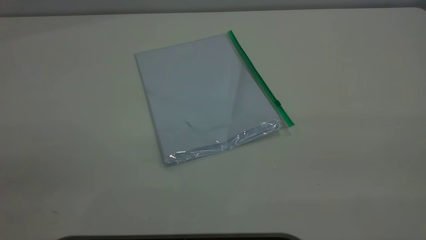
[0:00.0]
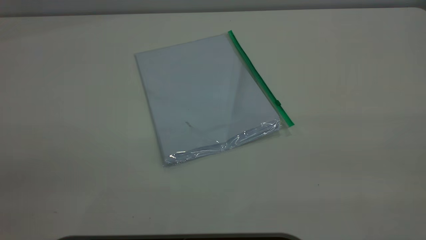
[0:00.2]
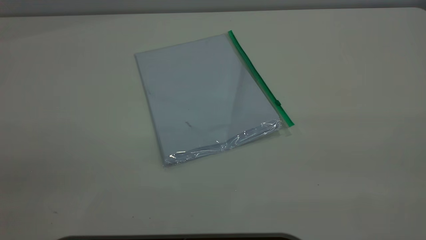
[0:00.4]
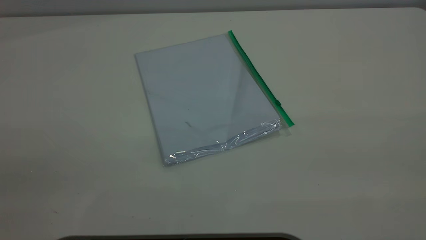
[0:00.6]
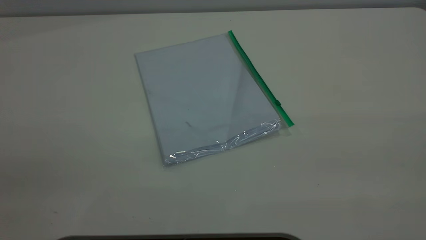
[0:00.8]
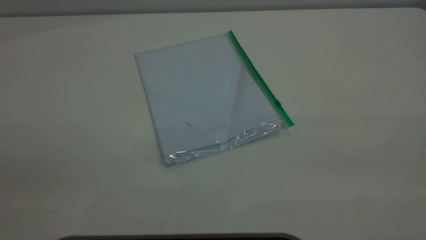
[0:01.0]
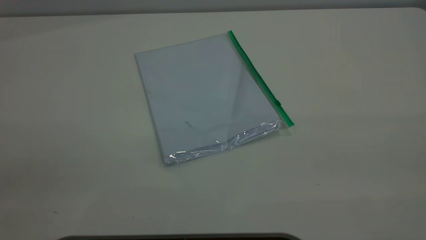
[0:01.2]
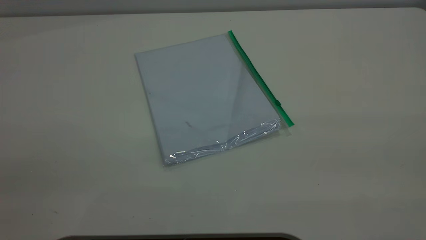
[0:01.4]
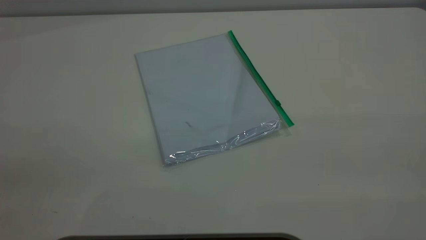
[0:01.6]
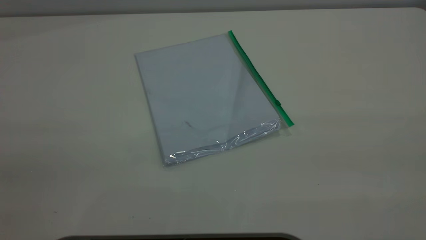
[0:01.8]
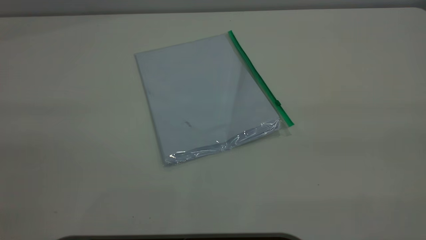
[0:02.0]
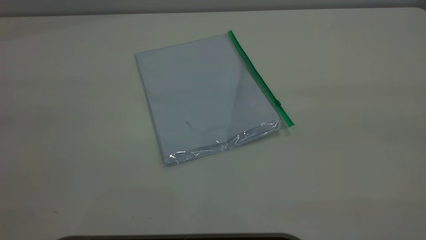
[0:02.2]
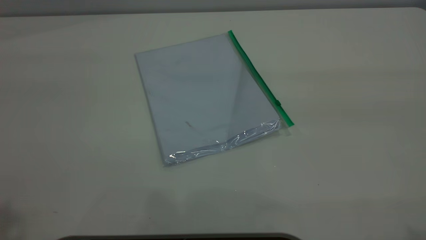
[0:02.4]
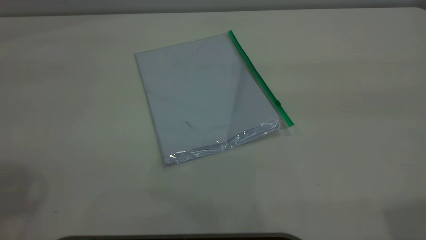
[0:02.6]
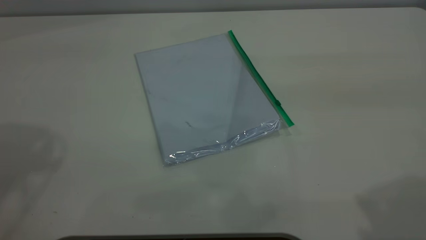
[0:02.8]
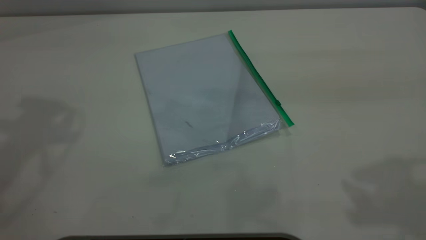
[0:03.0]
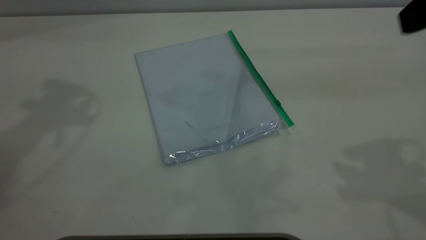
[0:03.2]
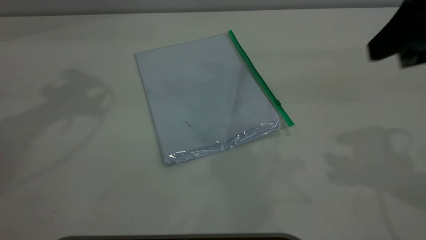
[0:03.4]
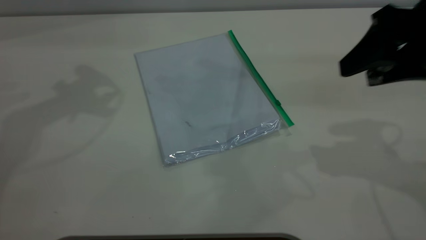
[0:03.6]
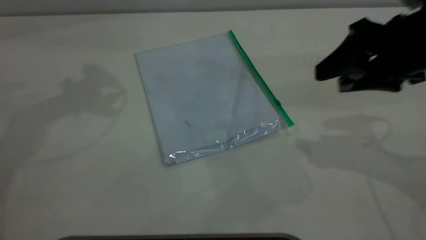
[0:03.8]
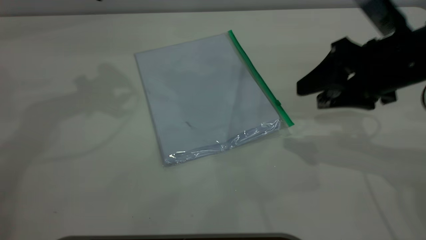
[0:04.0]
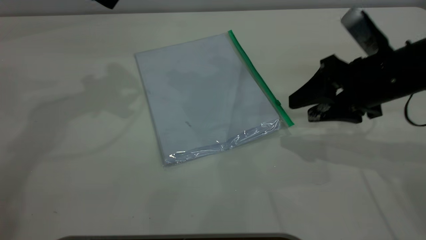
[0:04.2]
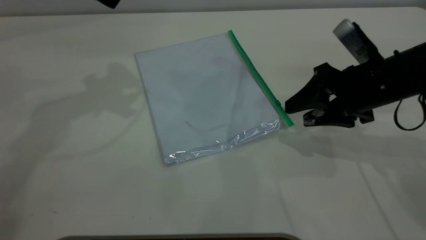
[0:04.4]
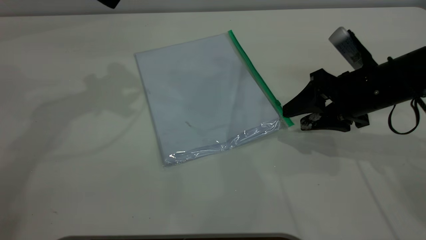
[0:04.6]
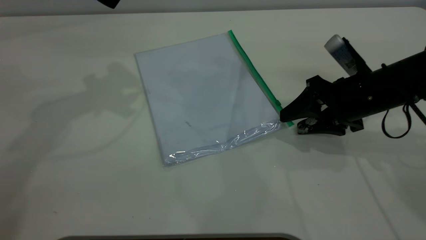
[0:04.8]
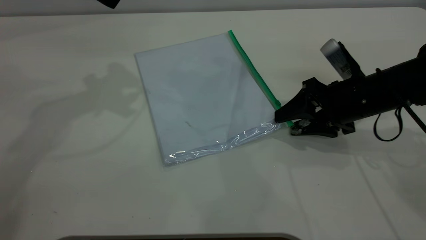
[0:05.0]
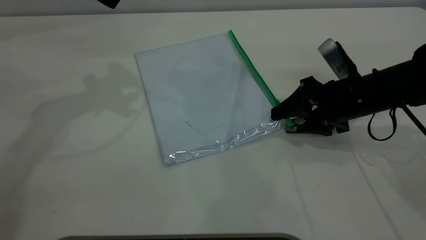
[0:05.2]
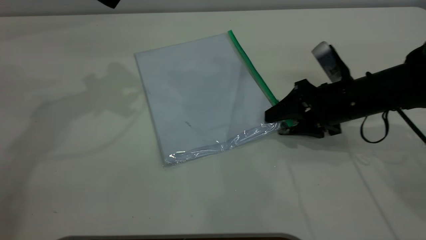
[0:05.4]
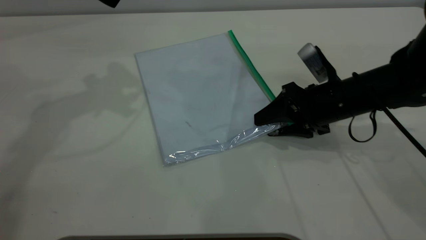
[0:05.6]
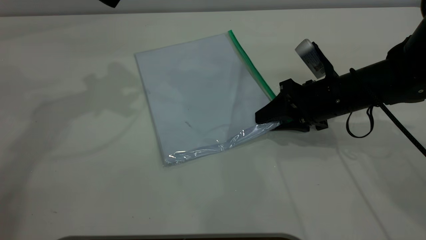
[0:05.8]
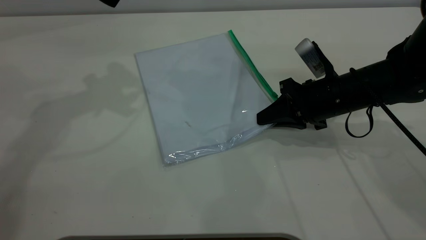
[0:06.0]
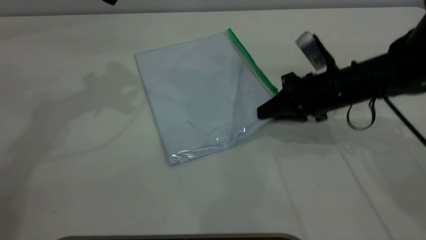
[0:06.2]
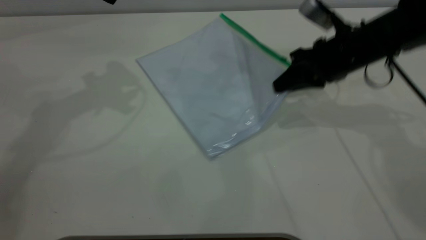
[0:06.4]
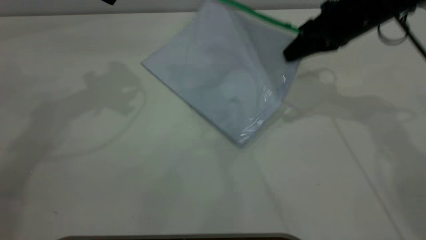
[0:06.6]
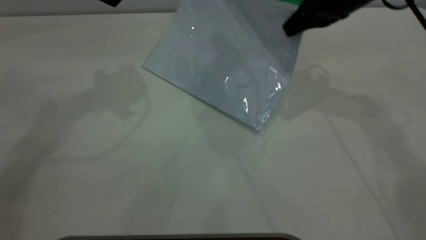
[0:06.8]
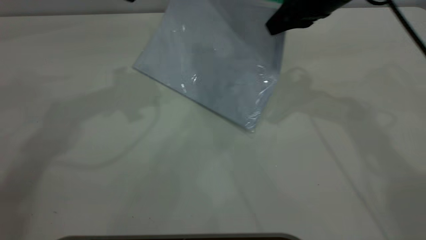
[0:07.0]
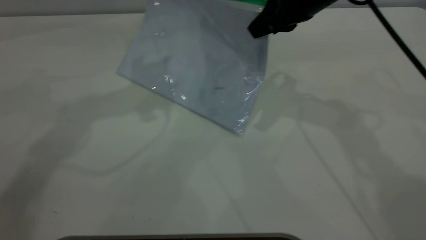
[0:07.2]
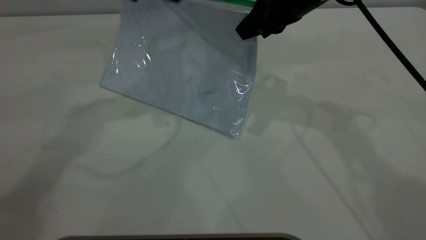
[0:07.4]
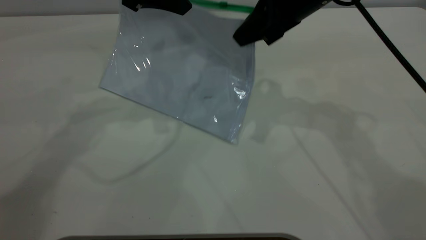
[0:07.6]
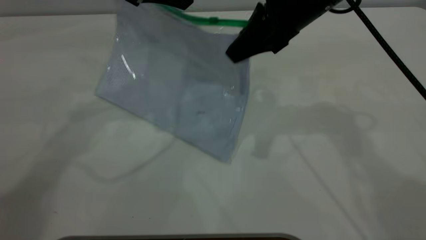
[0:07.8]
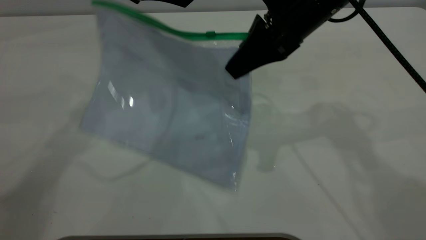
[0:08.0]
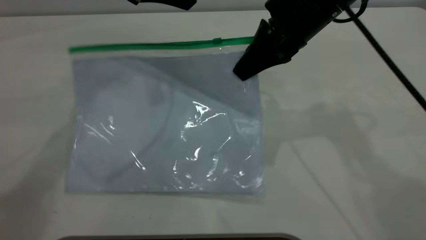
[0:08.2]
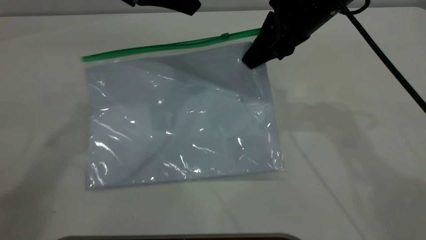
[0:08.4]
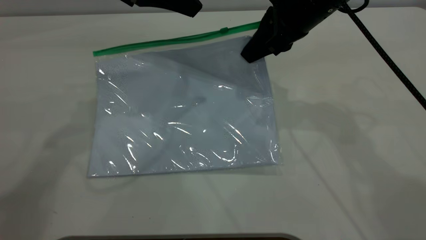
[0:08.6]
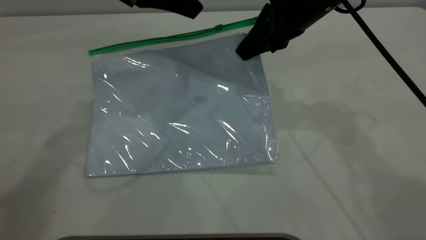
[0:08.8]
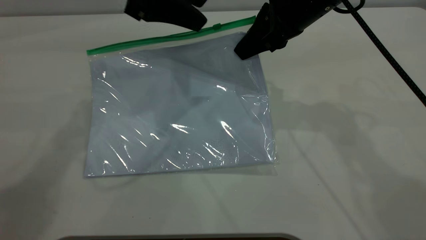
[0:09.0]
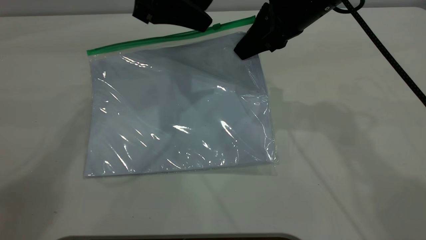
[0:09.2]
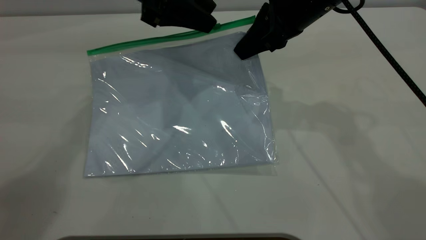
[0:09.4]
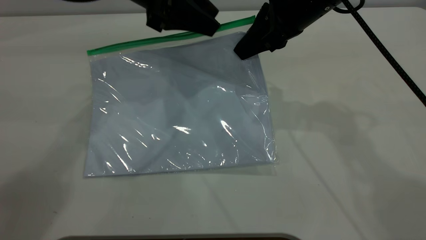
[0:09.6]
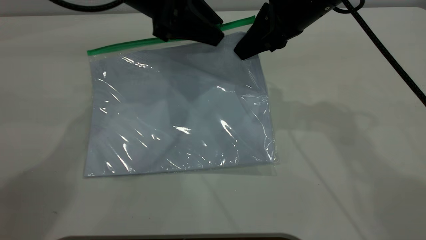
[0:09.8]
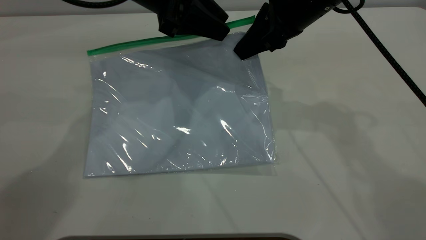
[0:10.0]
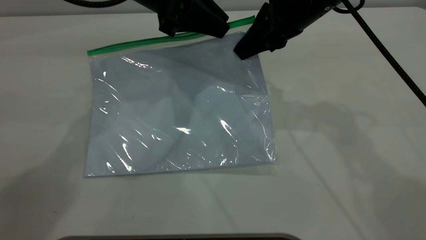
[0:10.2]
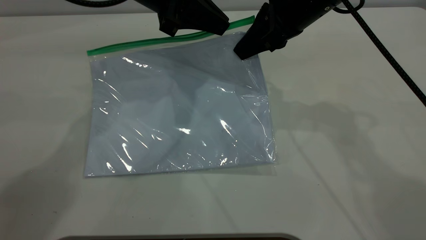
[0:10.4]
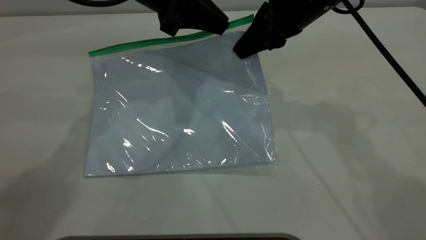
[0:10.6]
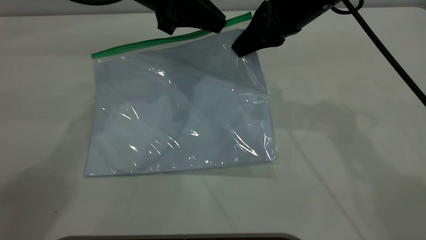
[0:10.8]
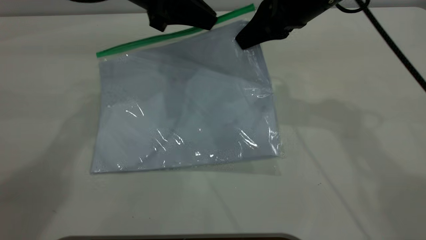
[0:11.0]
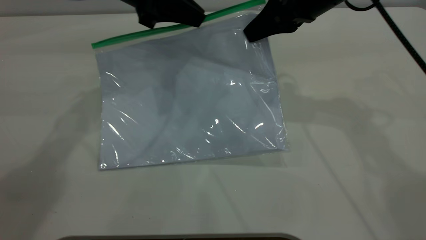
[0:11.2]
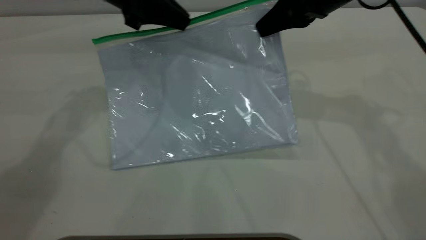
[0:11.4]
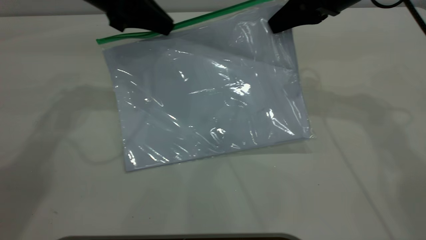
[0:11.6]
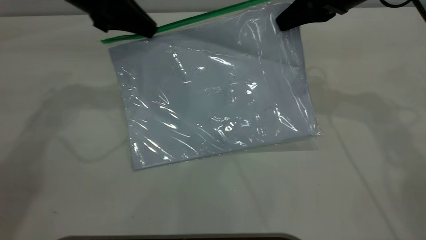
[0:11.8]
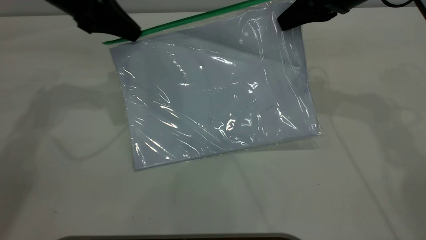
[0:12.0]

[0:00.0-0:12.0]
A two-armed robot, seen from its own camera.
Step, 0:00.0 to 0:06.4: Pick up the transparent plastic bag with the right gripper.
0:00.0 to 0:01.6: Both grippers stay about where they are.
0:03.0 to 0:04.4: The right gripper heads downward and forward, covering about 25 cm.
0:04.4 to 0:06.0: The right gripper ends up about 5 cm from where it was, and closes up.
0:06.0 to 0:07.6: The right gripper shifts roughly 15 cm upward, while the left gripper shifts roughly 10 cm to the right.
0:09.0 to 0:10.4: The left gripper closes.
0:10.4 to 0:12.0: The left gripper is displaced to the left by roughly 15 cm; the right gripper travels to the right by about 10 cm.

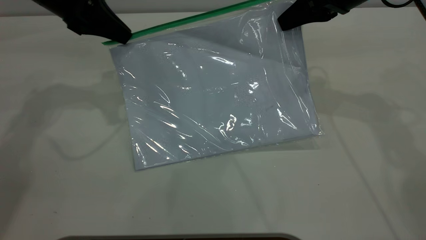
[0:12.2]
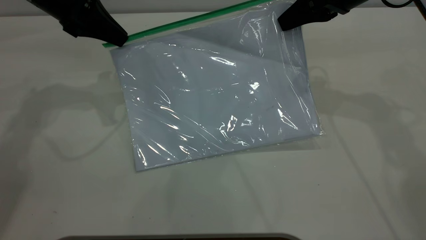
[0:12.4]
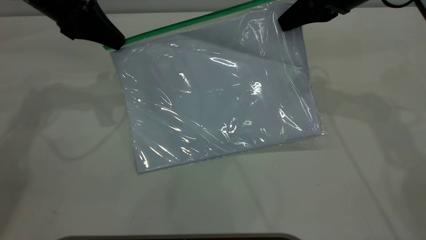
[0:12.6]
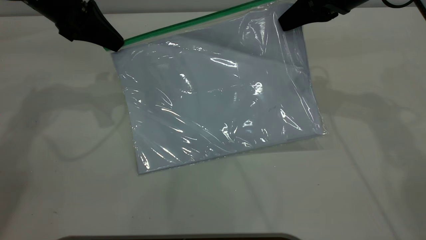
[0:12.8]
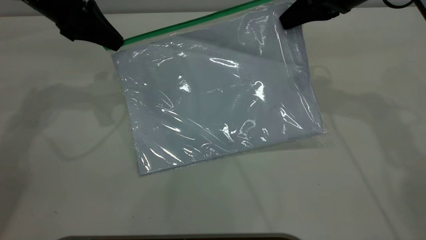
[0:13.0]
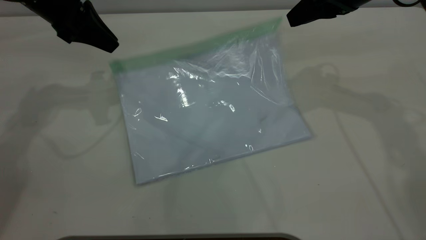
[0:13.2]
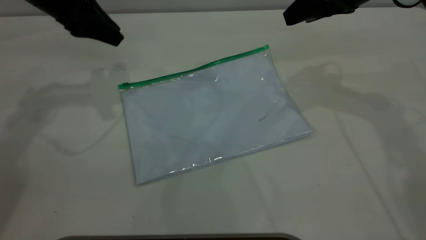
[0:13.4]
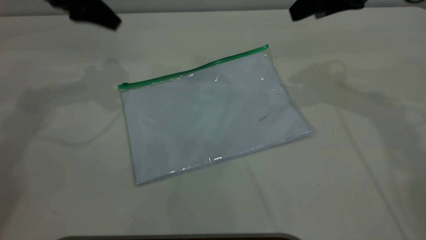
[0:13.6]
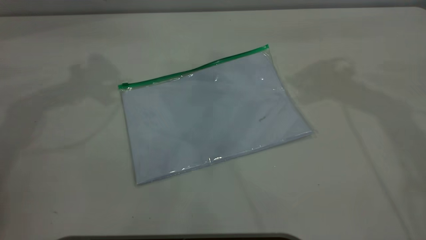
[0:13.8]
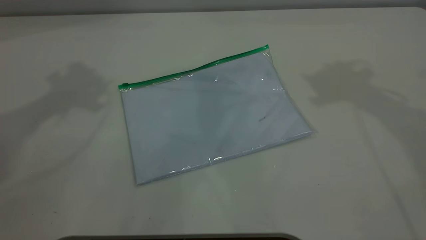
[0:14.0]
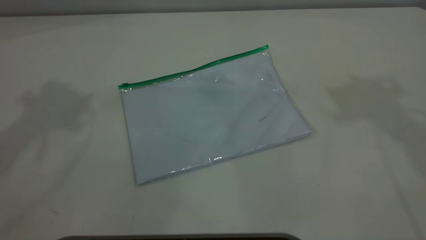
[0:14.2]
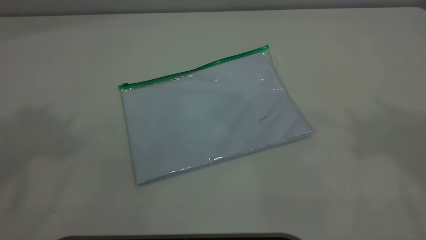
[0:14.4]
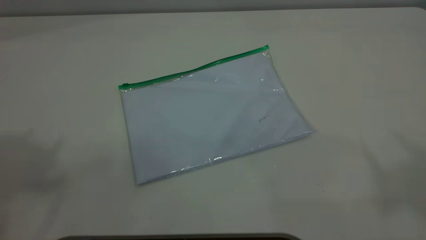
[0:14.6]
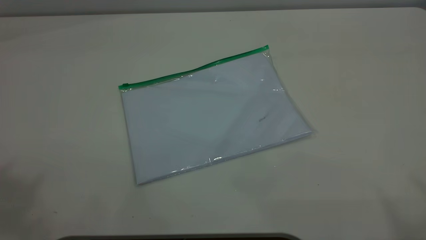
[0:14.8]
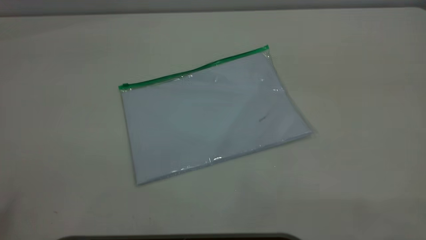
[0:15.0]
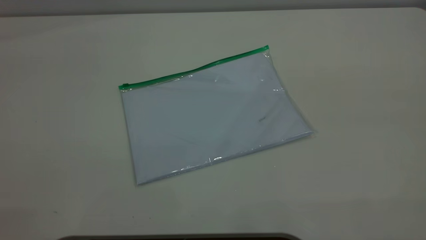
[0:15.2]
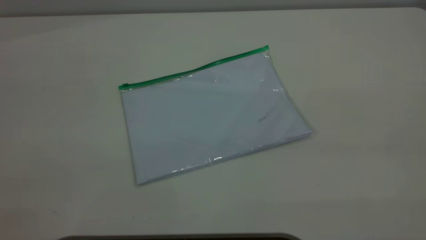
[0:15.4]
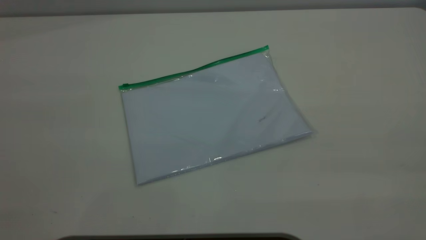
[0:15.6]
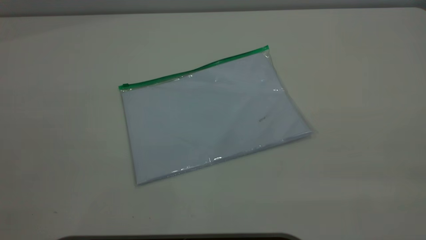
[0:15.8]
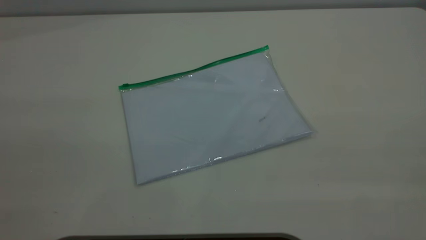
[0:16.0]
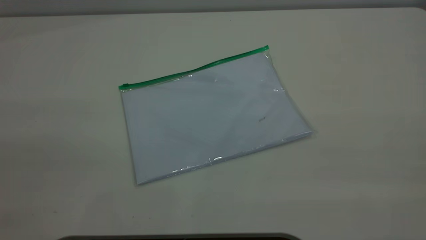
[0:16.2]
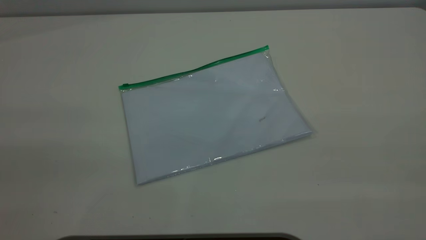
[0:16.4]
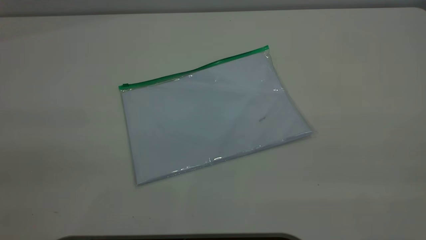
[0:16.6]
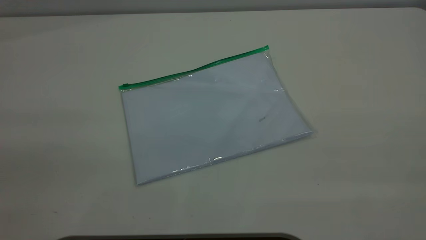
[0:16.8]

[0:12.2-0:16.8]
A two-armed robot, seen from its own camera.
0:12.2 to 0:13.8: The two grippers go approximately 10 cm upward. The left gripper opens up, while the right gripper opens up.
